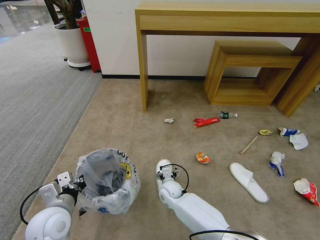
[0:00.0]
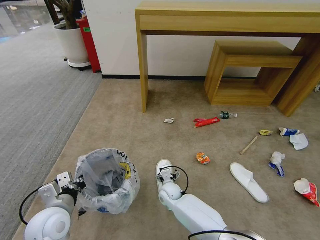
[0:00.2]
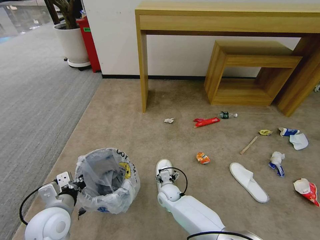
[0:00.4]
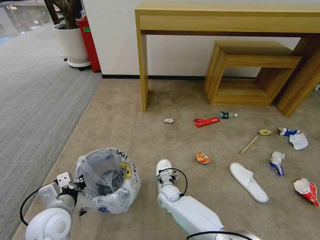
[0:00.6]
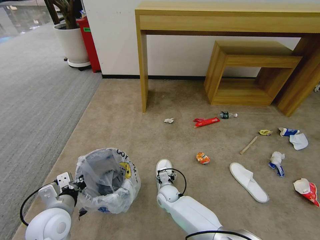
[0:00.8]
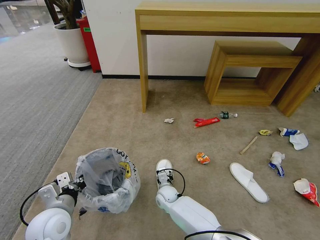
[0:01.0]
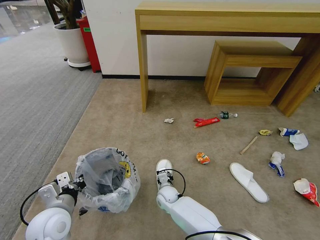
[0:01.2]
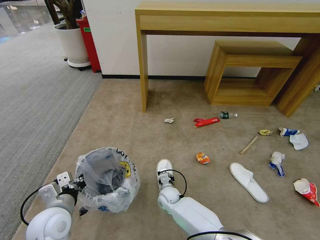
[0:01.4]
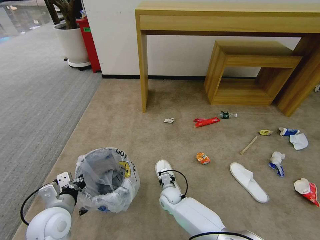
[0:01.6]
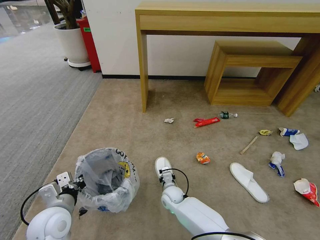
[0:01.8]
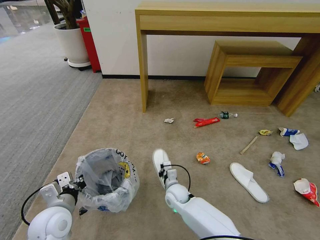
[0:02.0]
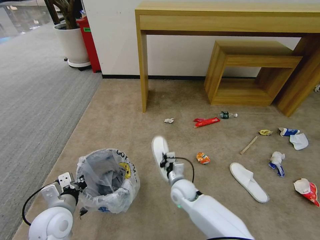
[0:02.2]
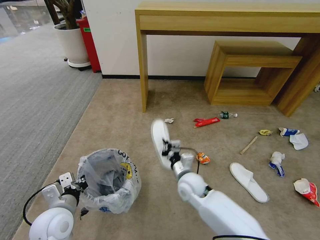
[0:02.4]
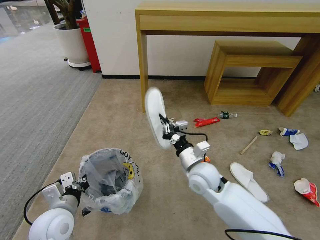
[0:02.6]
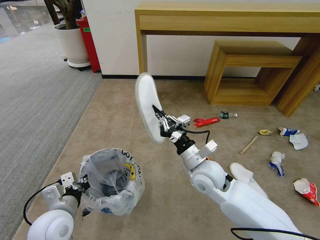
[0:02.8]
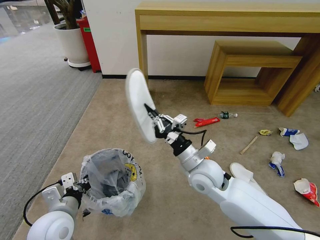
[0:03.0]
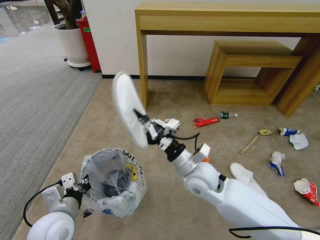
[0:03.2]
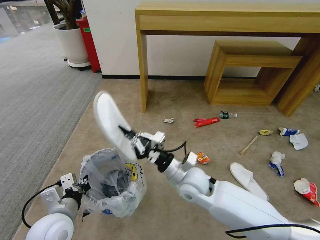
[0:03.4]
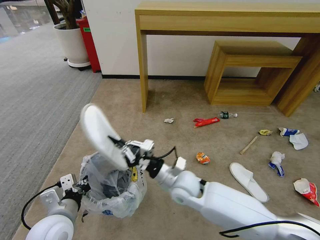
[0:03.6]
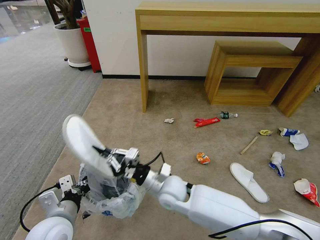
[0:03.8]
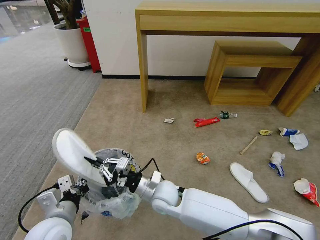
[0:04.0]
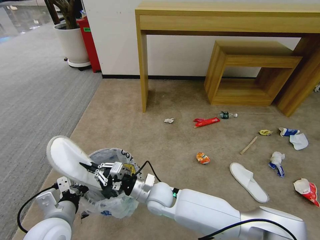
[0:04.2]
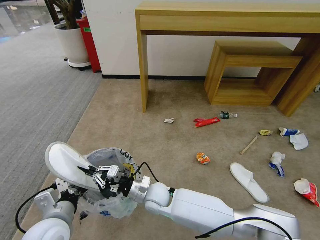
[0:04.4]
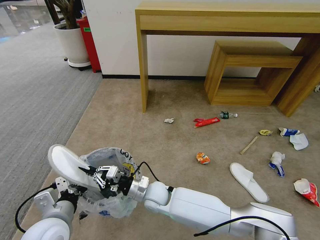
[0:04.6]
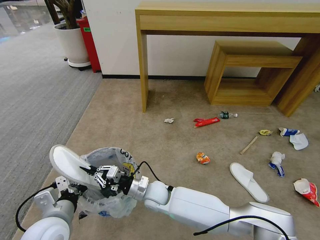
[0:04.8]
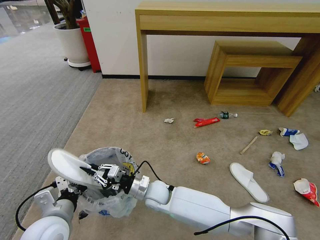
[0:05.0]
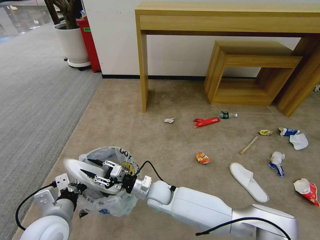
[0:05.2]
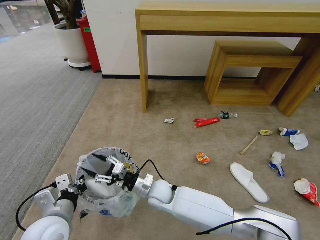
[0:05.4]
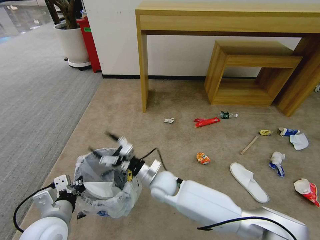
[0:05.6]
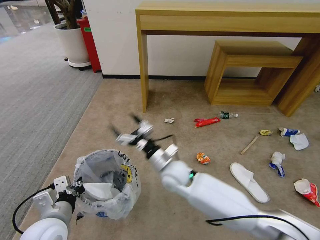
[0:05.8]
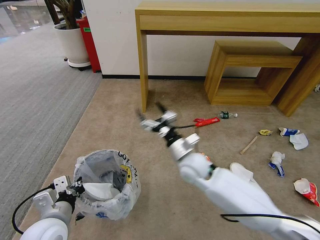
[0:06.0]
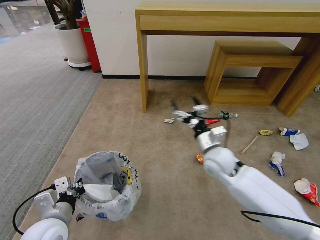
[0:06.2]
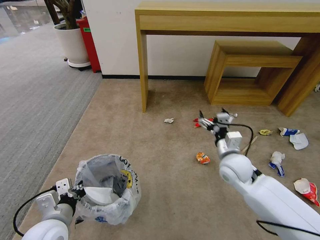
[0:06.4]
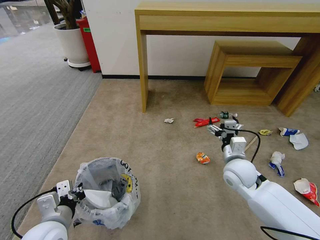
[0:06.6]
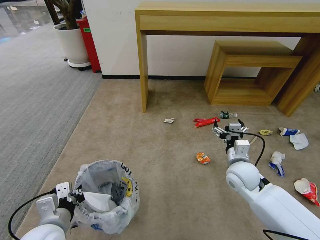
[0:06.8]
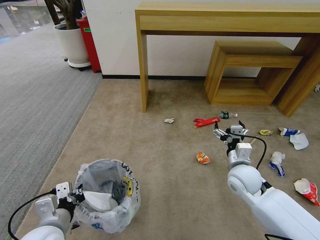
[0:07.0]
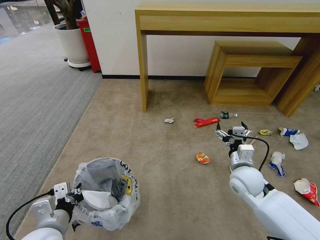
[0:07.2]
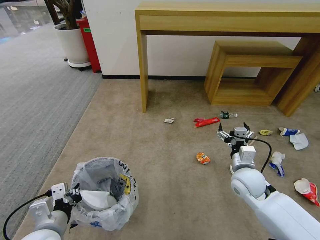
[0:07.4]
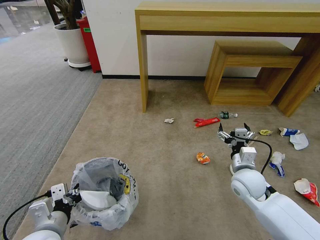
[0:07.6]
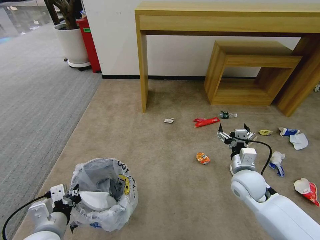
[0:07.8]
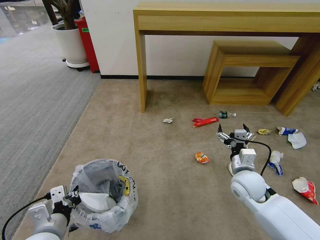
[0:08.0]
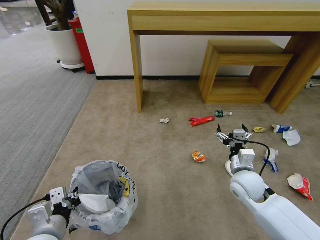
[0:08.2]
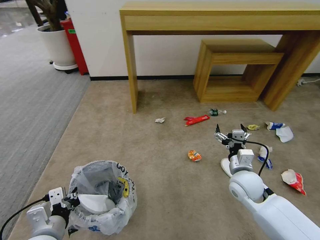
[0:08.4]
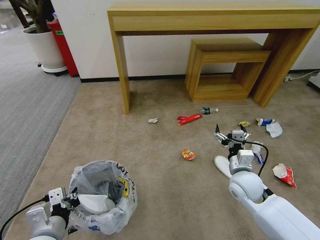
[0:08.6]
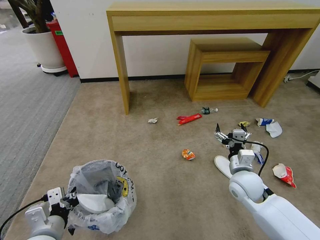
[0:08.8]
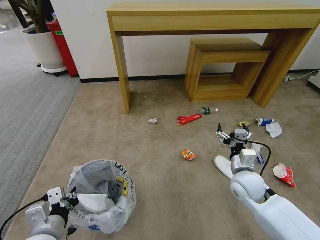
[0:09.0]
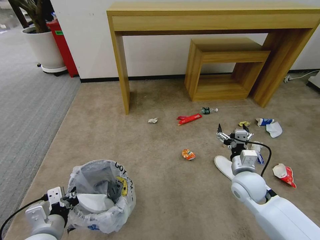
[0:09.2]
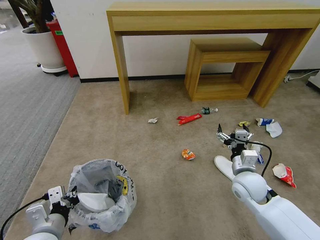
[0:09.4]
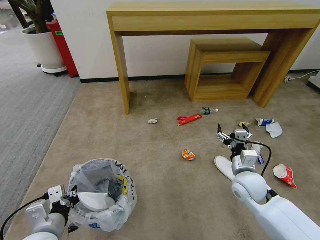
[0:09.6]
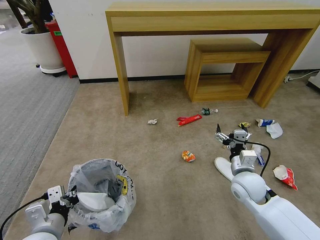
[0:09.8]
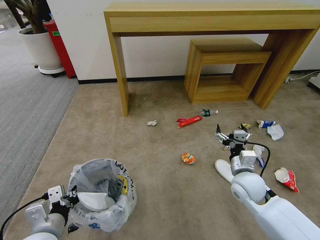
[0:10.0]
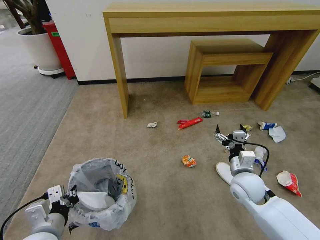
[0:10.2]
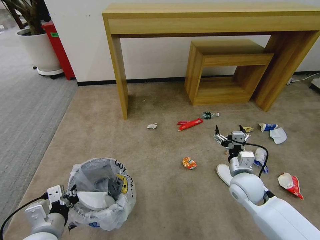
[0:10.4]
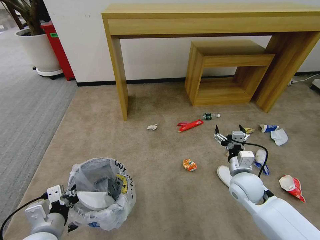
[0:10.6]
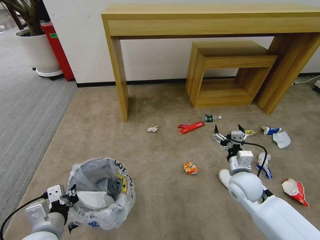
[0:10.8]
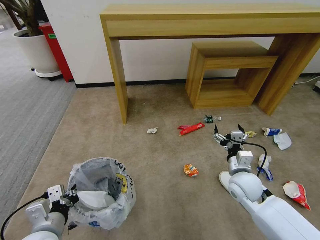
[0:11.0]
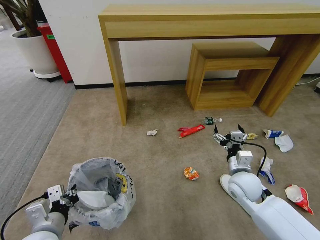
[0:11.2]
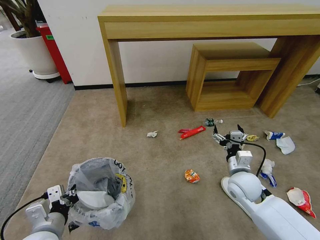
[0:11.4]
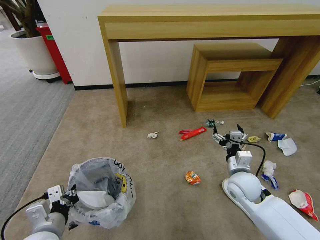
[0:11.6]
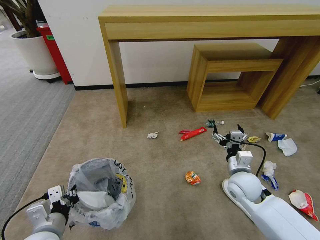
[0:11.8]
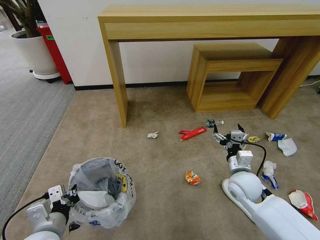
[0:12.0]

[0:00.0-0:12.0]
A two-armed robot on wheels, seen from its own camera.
Task of the whole recording: Pick up the trash bin and place the garbage on the floor into it.
0:00.0 to 0:01.6: The right gripper closes up.
0:01.6 to 0:03.0: The right gripper moves upward, roughly 25 cm.
0:03.0 to 0:04.4: The right gripper travels to the left and downward by approximately 20 cm.
0:04.4 to 0:06.0: The right gripper goes some 20 cm to the right, upward and forward, and opens its fingers.
0:06.0 to 0:07.6: The right gripper shifts approximately 15 cm to the right.
0:09.0 to 0:10.4: Neither gripper changes place.

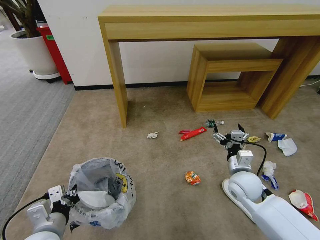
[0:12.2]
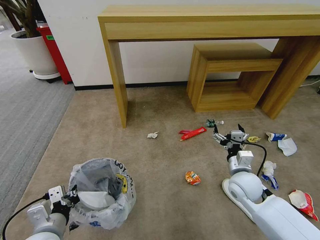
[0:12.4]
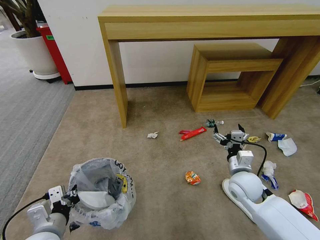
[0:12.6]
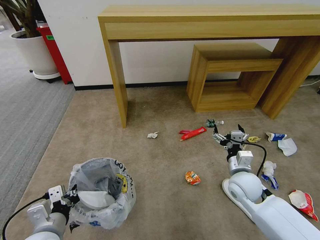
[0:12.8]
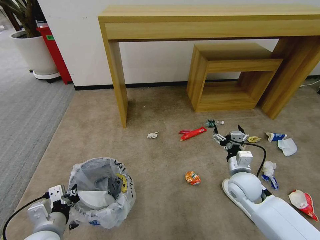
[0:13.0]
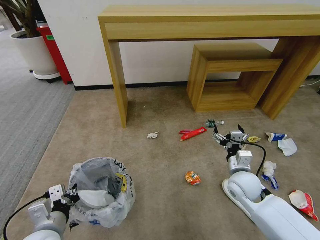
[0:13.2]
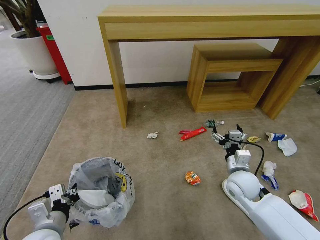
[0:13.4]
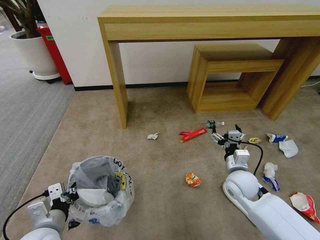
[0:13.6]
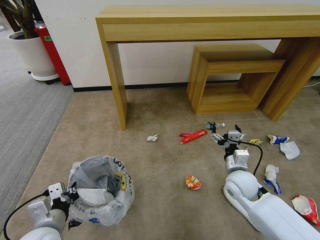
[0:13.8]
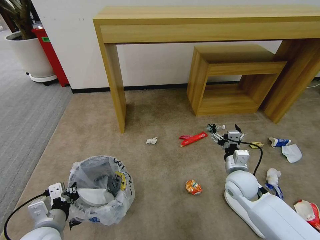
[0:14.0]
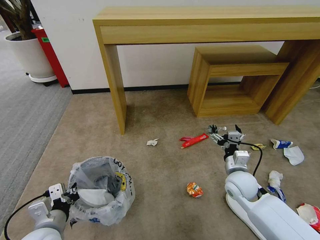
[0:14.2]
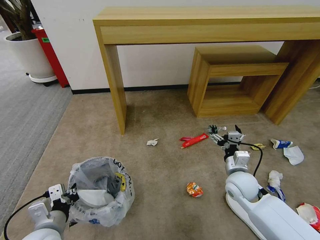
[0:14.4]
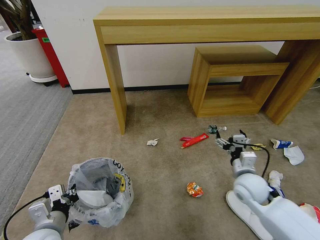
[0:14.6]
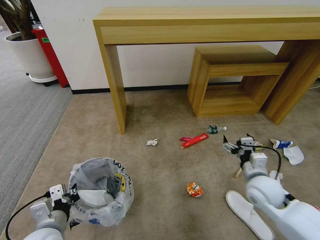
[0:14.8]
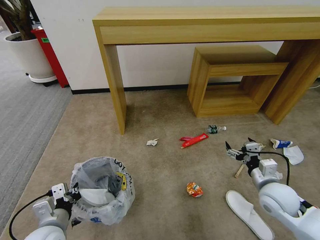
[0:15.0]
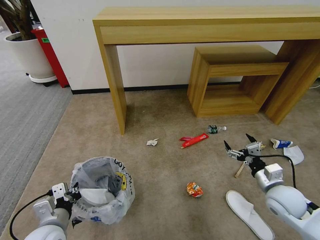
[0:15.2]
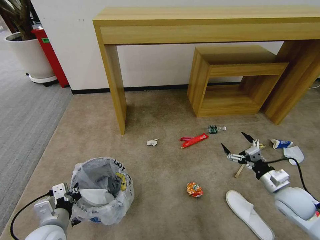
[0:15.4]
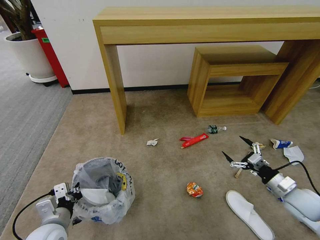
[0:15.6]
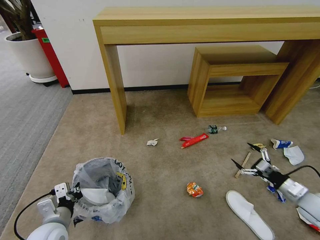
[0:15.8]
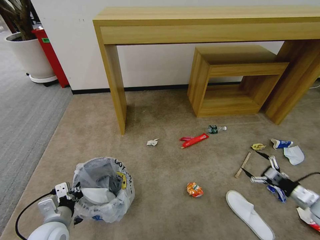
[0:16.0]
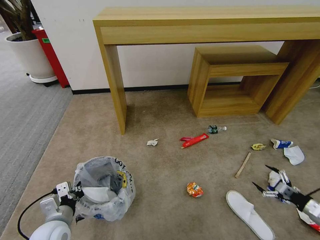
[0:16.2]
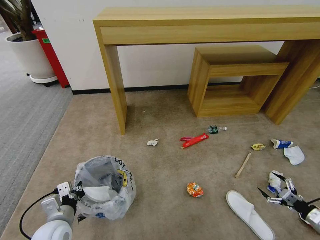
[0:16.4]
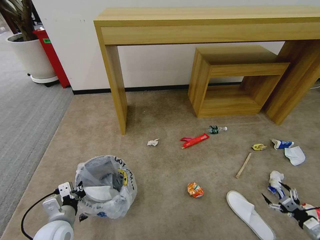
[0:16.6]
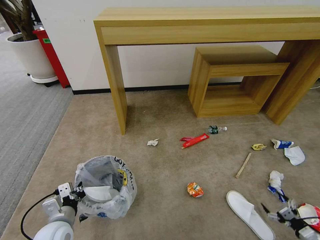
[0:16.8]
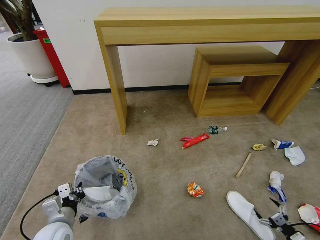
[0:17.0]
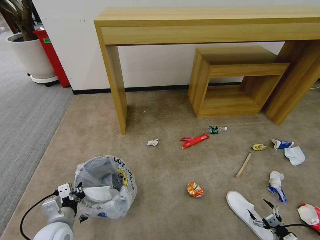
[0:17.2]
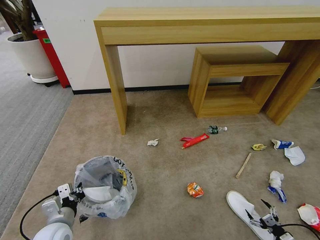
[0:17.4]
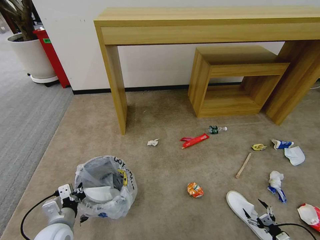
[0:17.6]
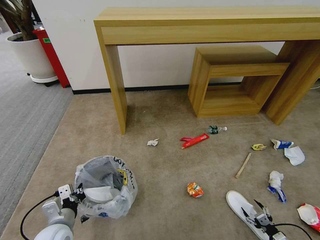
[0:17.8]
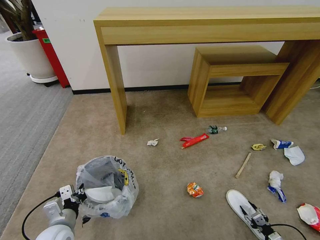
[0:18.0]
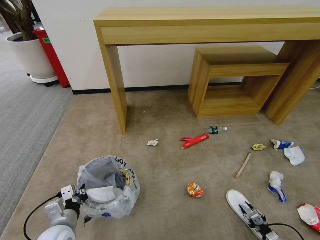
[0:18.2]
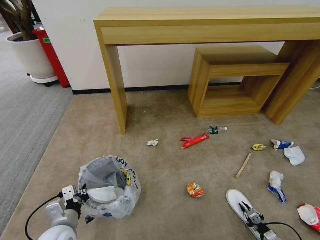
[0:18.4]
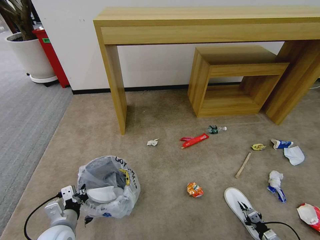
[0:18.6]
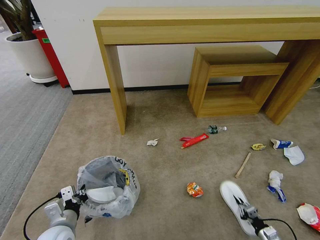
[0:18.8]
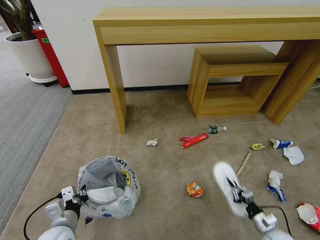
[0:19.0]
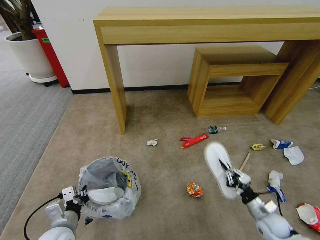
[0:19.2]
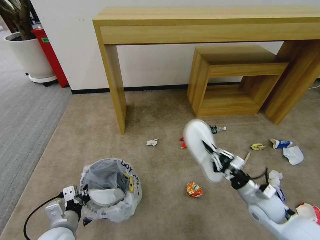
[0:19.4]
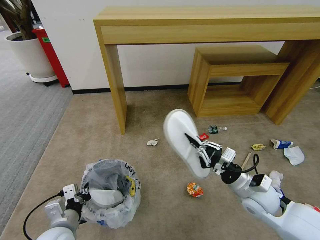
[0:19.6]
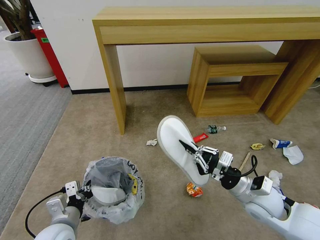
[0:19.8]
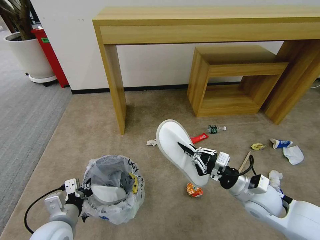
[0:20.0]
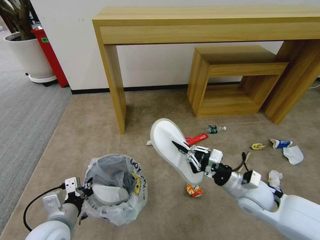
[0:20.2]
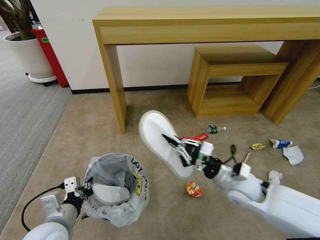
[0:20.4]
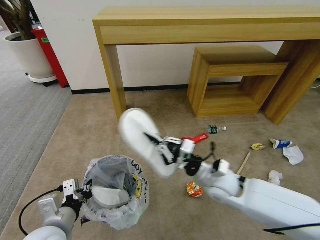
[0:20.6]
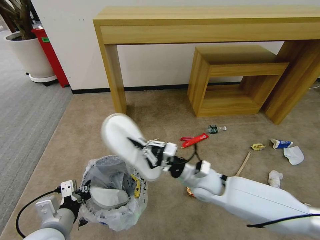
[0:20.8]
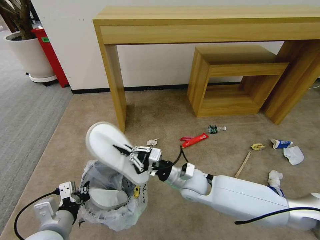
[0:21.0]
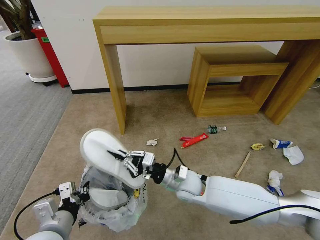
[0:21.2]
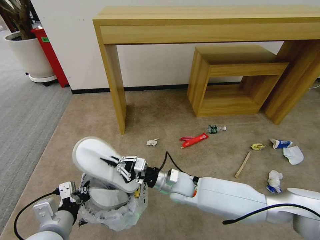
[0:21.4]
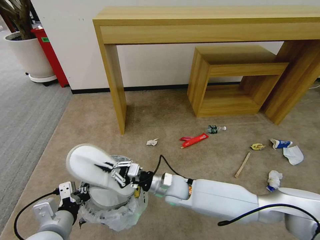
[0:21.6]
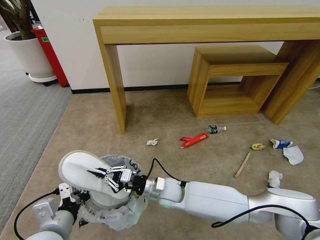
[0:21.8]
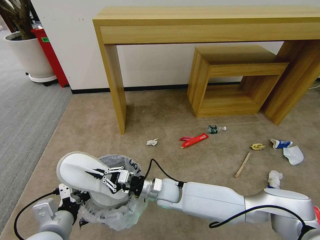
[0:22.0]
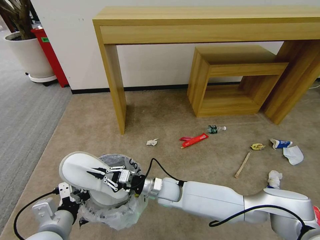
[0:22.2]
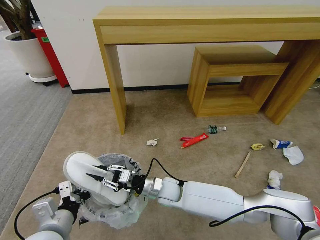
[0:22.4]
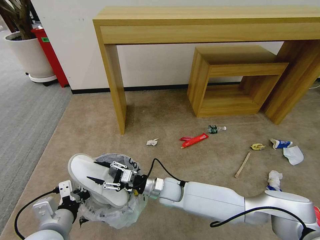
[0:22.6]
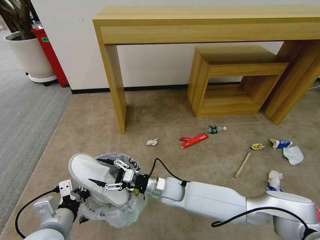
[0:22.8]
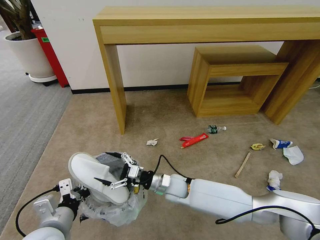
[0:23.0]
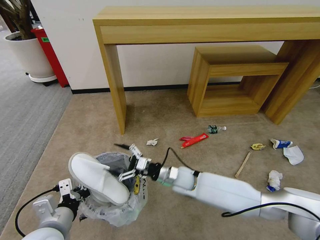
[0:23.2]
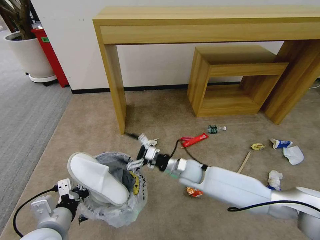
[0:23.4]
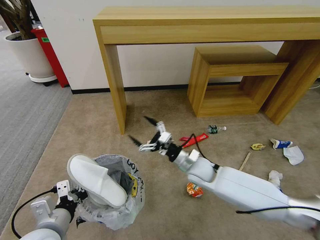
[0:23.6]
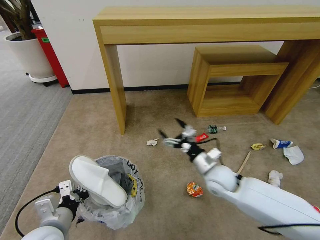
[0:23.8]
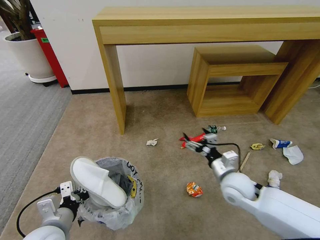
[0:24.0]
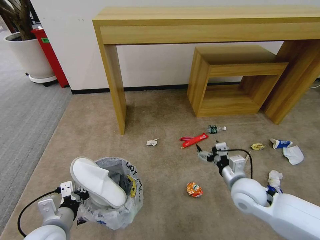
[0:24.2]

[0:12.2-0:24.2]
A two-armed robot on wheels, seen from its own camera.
Task of the whole recording: Pick up the trash bin and place the garbage on the floor into it.
0:12.2 to 0:13.8: Both grippers stay about where they are.
0:13.8 to 0:15.2: The right gripper heads to the right and backward, covering about 10 cm.
0:15.2 to 0:16.6: The right gripper is displaced to the right, downward and backward by about 30 cm.
0:16.6 to 0:18.2: The right gripper is displaced downward and to the left by some 15 cm, and closes its fingers.
0:18.2 to 0:19.8: The right gripper is displaced upward and to the left by roughly 40 cm.
0:19.8 to 0:21.2: The left gripper shifts about 5 cm upward. Meanwhile the right gripper goes approximately 20 cm to the left.
0:21.2 to 0:22.6: The right gripper shifts approximately 10 cm downward and to the left, and opens up.
0:22.6 to 0:24.2: The right gripper goes approximately 25 cm to the right and upward, and opens up.
